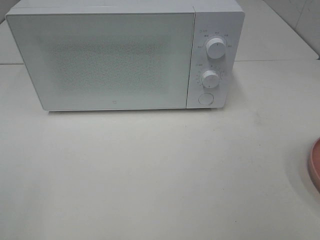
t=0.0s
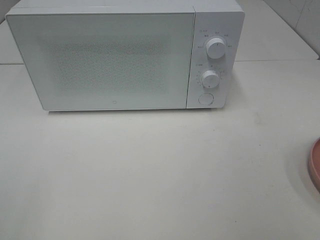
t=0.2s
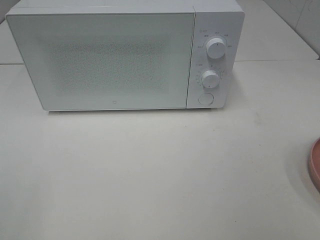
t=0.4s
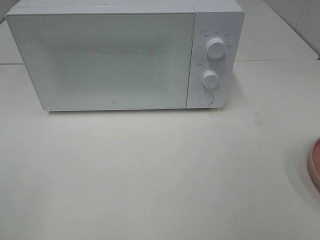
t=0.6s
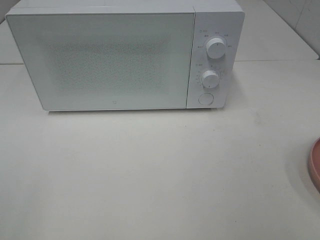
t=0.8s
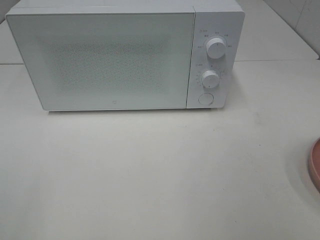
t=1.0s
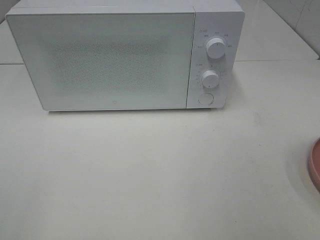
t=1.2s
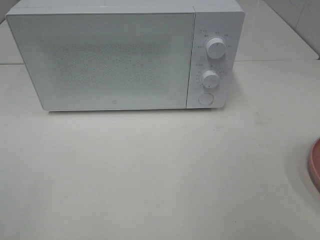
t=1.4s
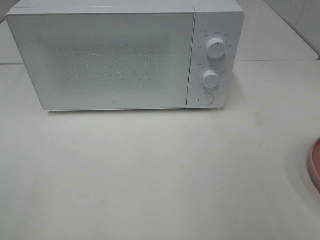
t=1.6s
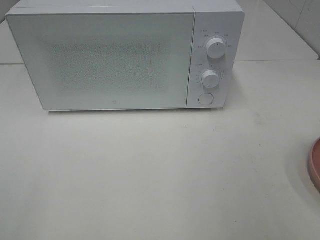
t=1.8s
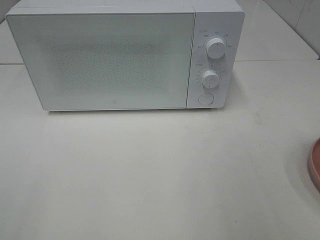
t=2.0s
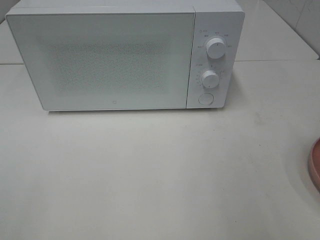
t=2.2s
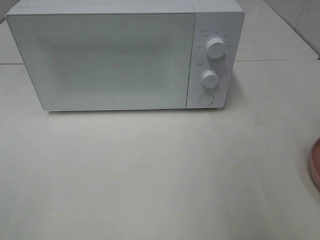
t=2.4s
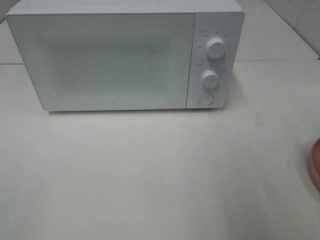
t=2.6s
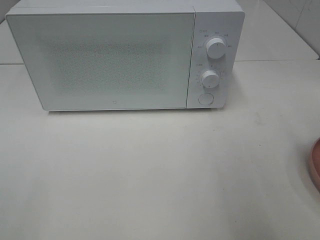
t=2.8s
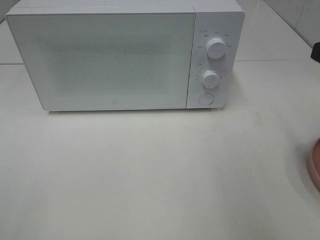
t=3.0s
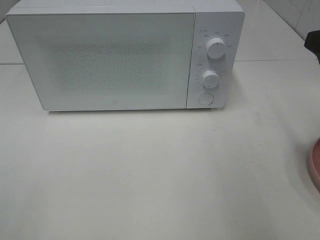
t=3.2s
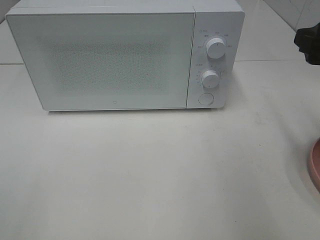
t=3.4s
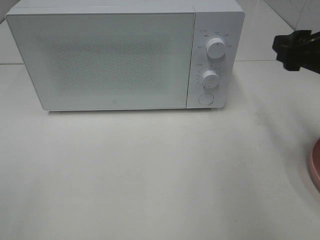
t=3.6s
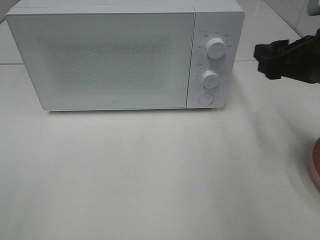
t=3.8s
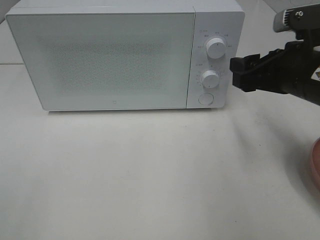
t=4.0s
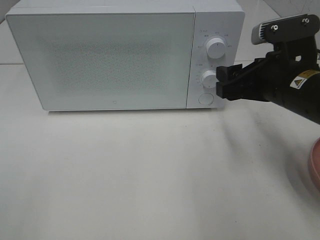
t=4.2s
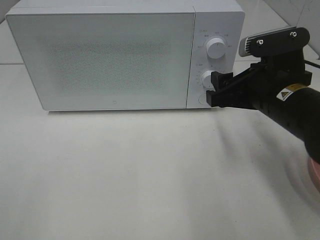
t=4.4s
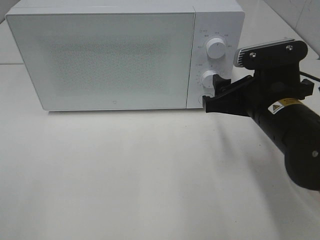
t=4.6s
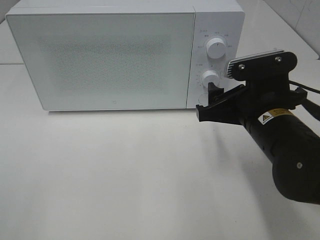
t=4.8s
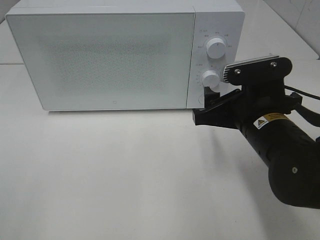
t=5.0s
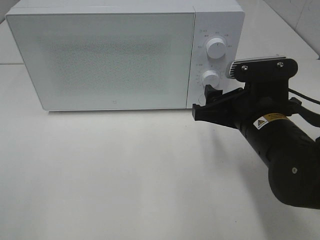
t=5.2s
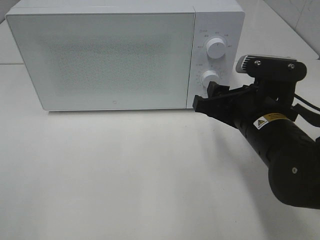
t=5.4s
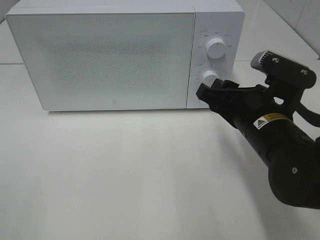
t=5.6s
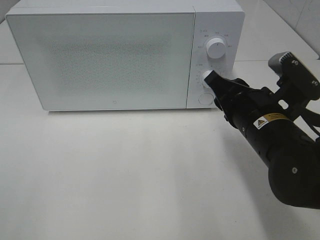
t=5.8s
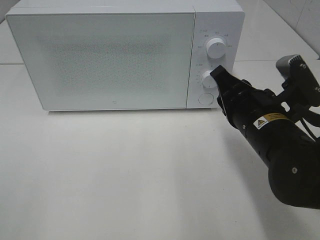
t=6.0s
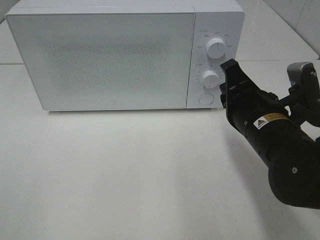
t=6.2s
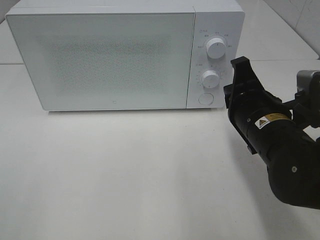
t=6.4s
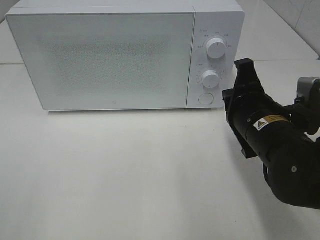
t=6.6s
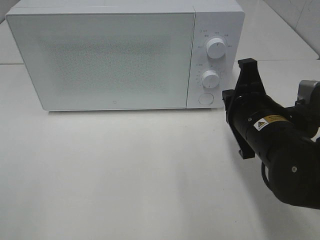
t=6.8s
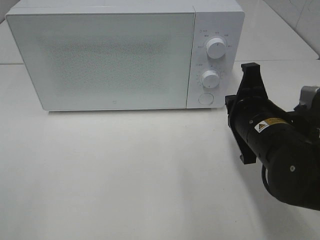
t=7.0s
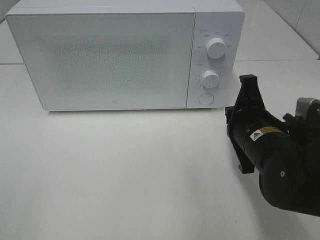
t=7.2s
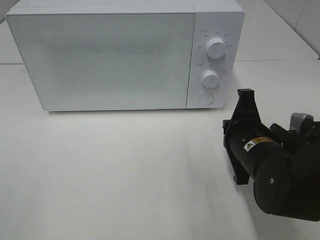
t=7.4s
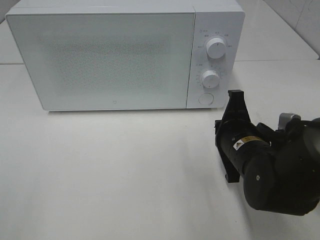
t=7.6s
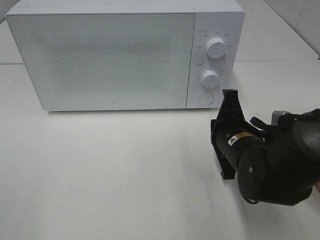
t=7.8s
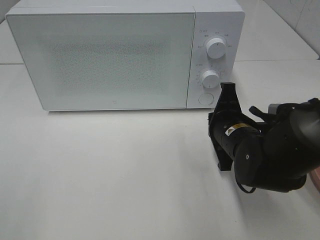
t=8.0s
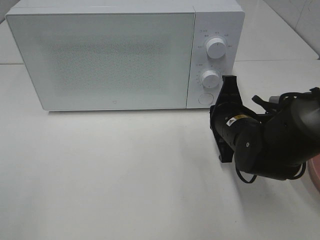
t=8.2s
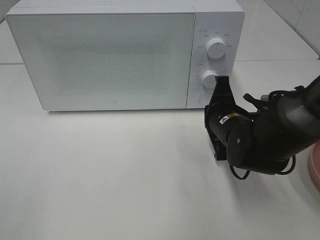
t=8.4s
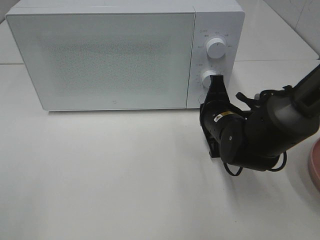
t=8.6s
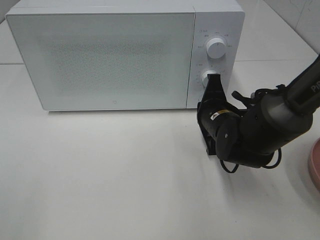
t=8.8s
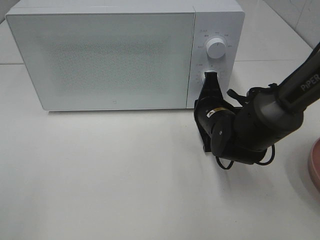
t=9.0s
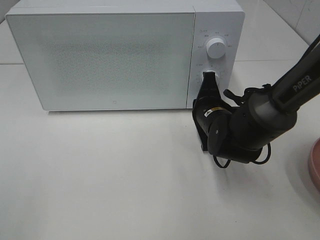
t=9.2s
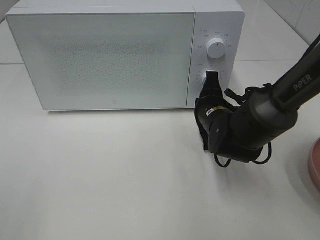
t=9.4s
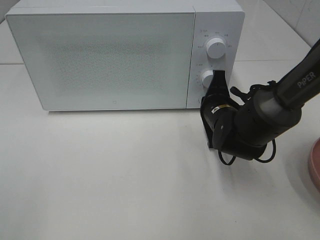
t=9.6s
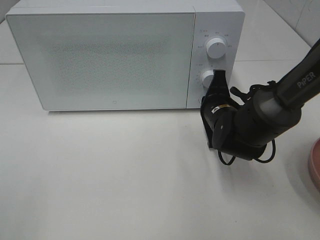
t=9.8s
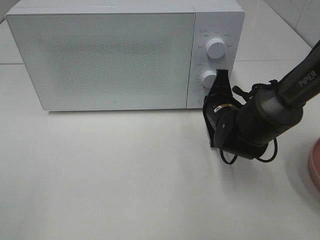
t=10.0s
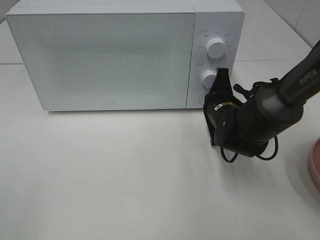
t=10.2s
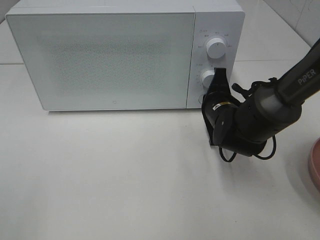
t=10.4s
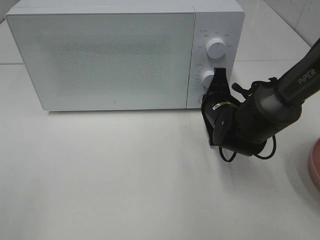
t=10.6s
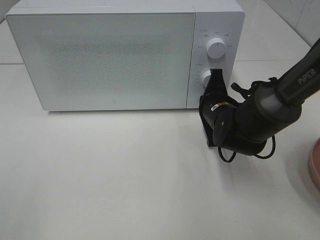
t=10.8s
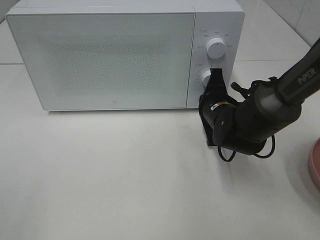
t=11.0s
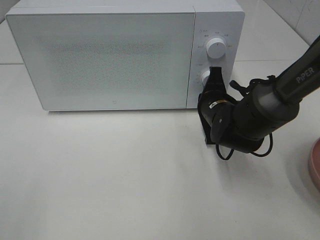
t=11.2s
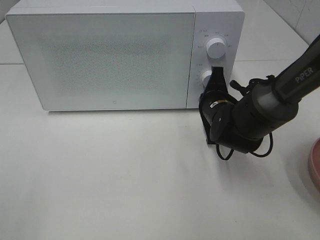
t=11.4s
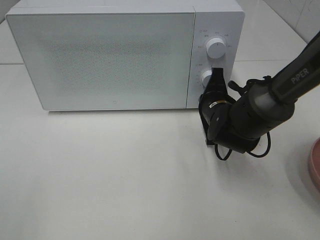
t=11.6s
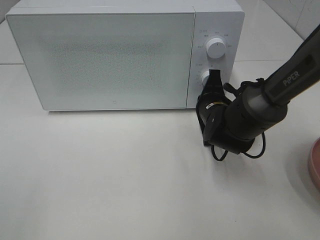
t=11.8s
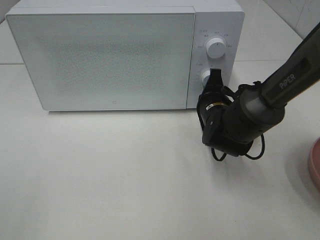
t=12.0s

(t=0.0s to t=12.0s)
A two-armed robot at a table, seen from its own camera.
Task of the whole recording: Heat the burger.
t=3.0s - t=4.4s: The right gripper heads to the left, downward and forward, covering about 15 cm.
t=4.4s - t=6.0s: The right gripper closes.
t=6.0s - t=7.6s: The right gripper goes about 5 cm downward.
t=7.6s - t=9.0s: The right gripper travels forward by some 10 cm.
t=9.0s - t=12.0s: There are only small adjustments of the grippers.

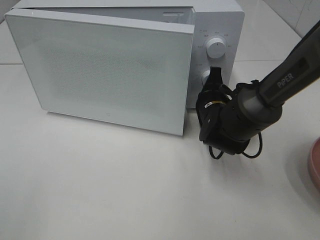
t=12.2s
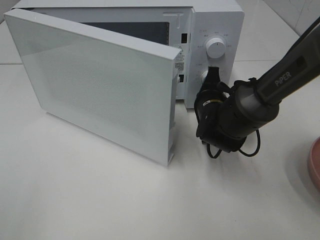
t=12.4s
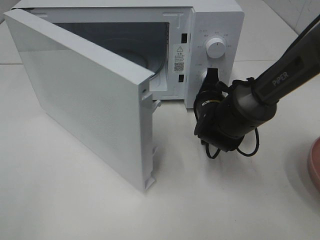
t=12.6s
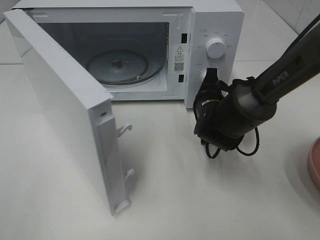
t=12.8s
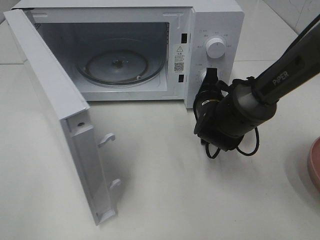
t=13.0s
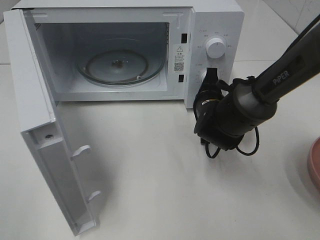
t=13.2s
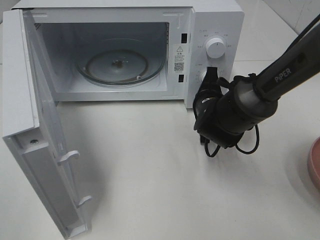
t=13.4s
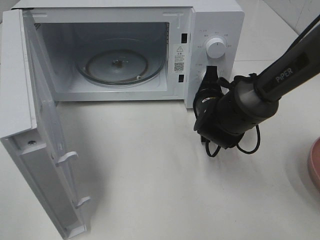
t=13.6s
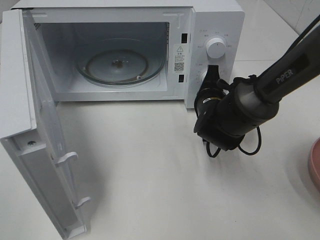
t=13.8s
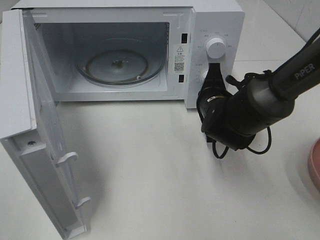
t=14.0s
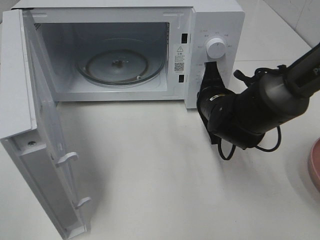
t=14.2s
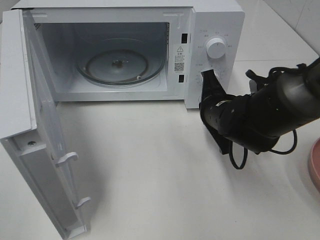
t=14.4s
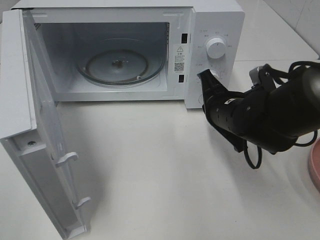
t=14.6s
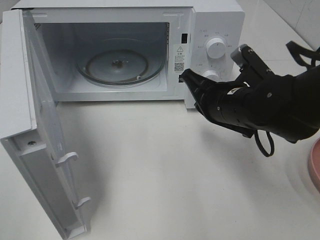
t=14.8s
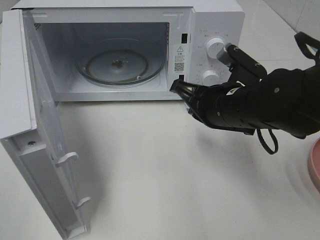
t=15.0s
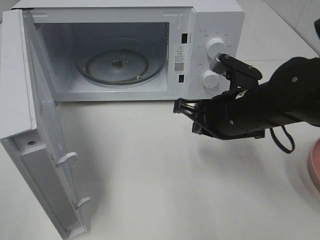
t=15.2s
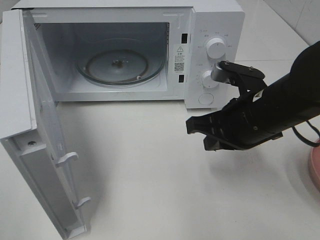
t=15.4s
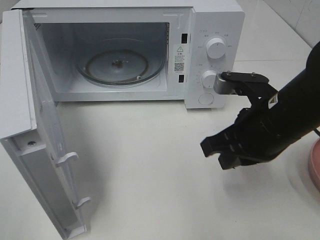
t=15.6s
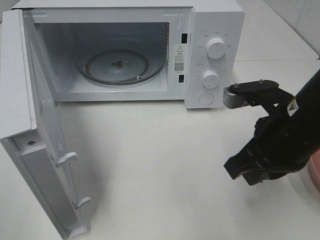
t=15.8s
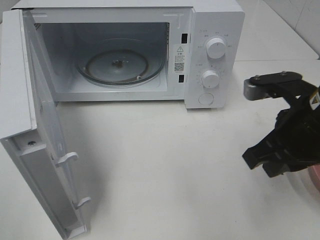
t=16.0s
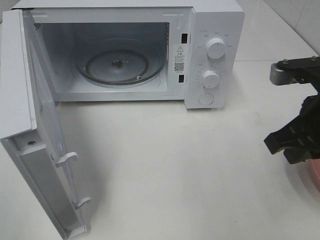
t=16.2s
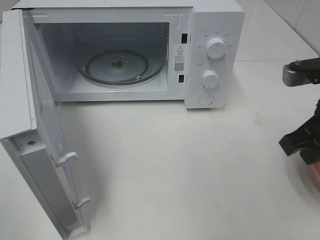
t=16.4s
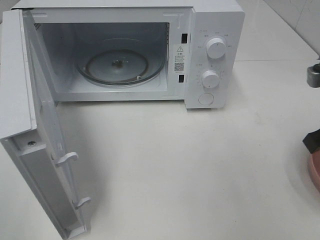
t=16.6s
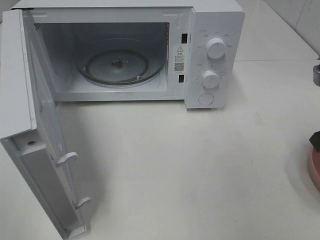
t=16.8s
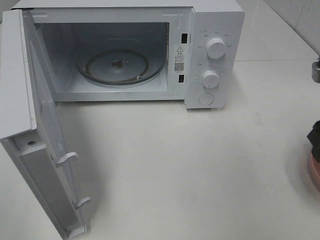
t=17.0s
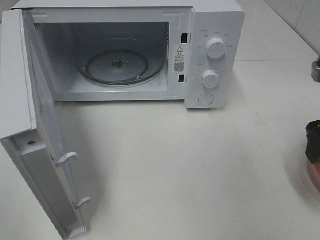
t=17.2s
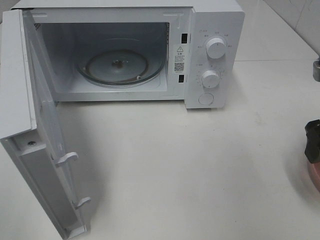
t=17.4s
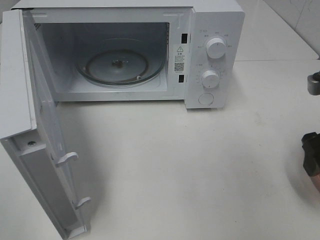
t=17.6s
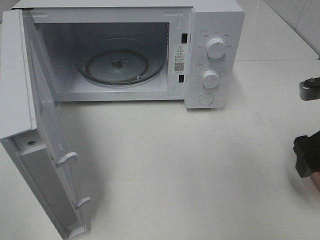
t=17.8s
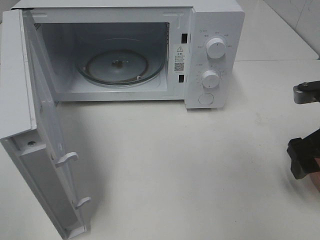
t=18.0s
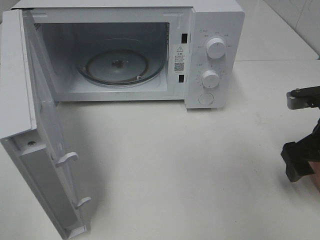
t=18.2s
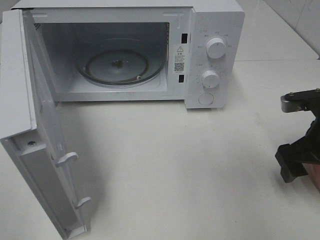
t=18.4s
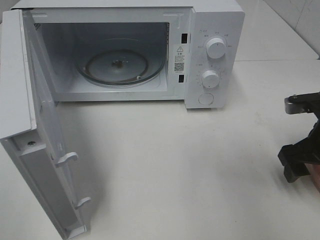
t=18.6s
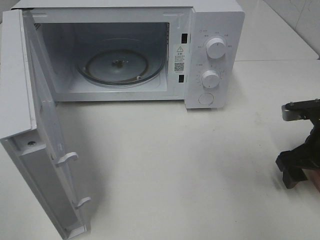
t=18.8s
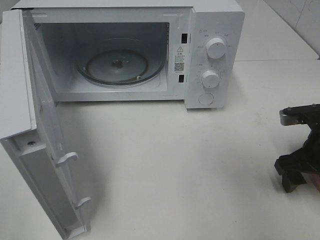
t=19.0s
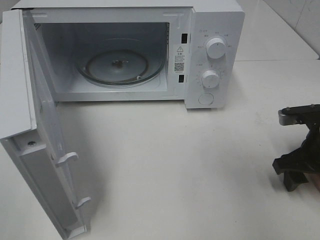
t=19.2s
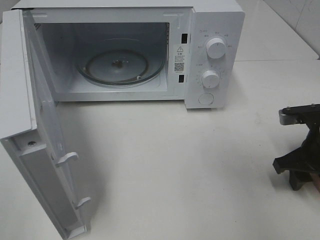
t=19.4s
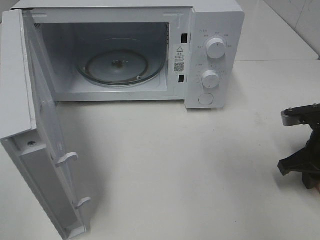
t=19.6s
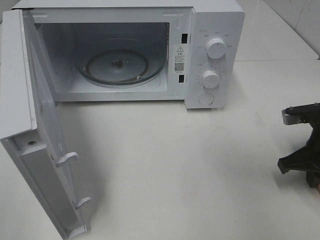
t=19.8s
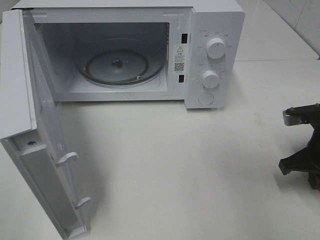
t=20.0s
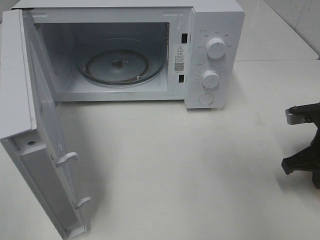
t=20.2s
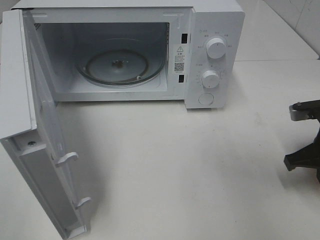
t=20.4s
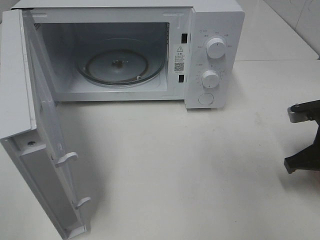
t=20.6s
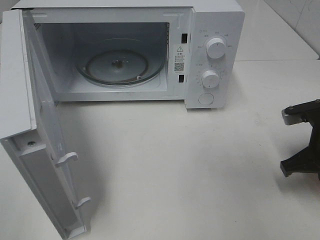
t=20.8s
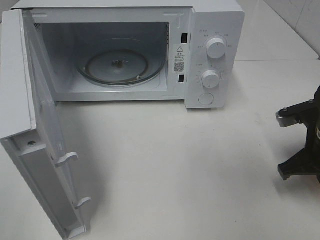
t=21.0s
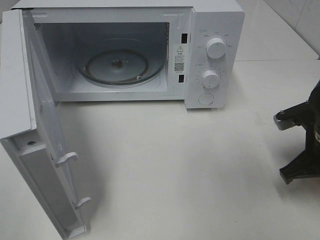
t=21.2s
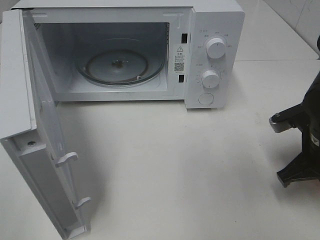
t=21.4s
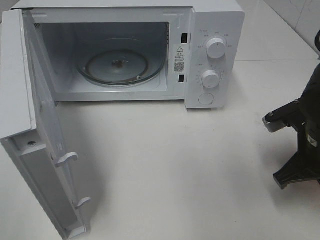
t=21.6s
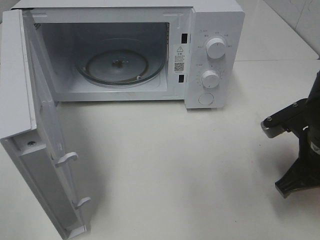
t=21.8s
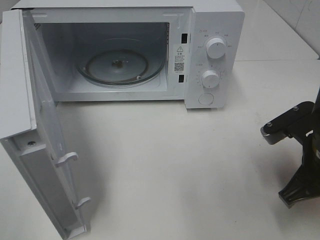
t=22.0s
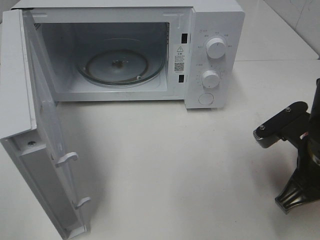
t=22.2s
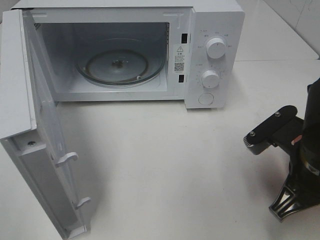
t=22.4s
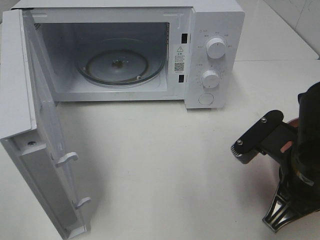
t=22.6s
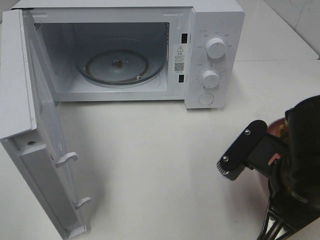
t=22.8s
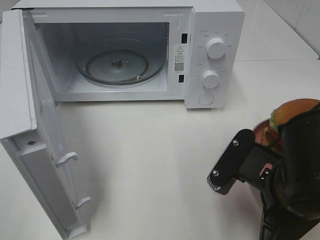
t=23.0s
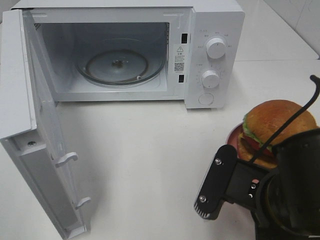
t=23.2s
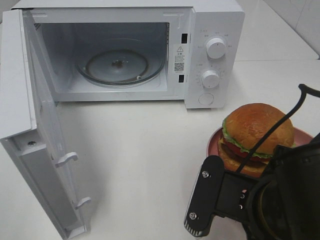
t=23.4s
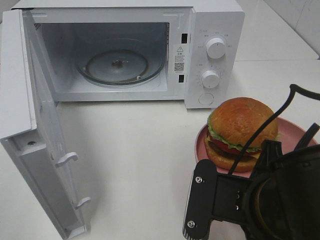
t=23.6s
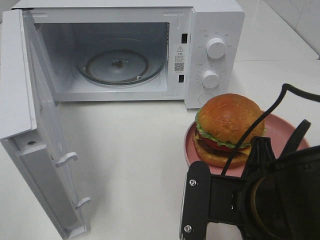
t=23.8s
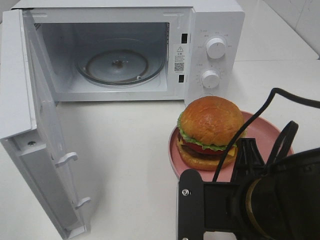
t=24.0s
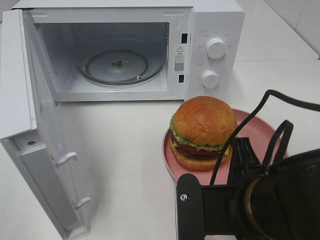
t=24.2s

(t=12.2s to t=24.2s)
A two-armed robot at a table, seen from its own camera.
Task of the whole recording: Heat the burger.
Step, t=14.2s - t=20.0s: Right hand: grab the plate with the hamburger.
t=13.8s - t=15.2s: The right gripper goes approximately 10 cm backward and upward.
t=15.2s - t=16.6s: The right gripper is displaced to the right and upward by some 15 cm.
t=16.6s - t=18.2s: The right gripper shifts about 5 cm downward, and opens up.
t=18.2s - t=19.8s: The right gripper ends up roughly 5 cm from where it was, and closes its fingers.
t=19.8s - t=21.2s: There are only small adjustments of the grippers.
t=21.2s - t=22.6s: The right gripper goes about 10 cm to the left and backward.
t=22.6s - t=24.2s: The right gripper is displaced to the left by roughly 5 cm.
